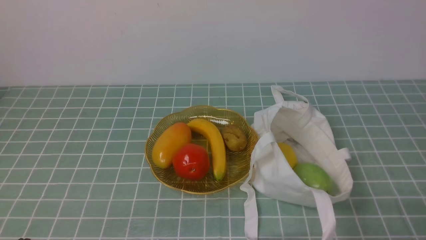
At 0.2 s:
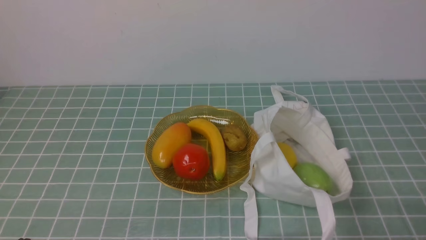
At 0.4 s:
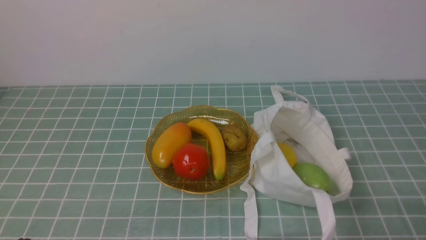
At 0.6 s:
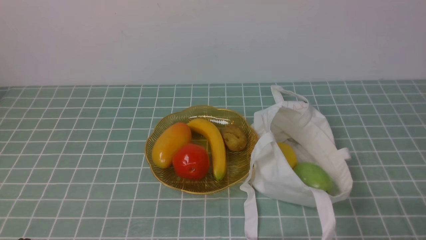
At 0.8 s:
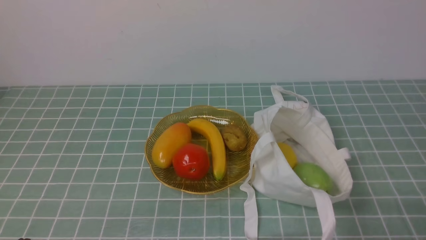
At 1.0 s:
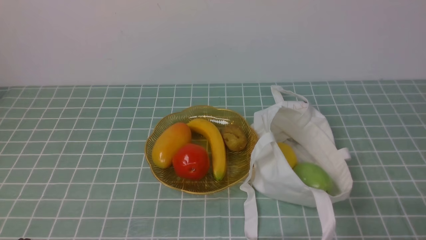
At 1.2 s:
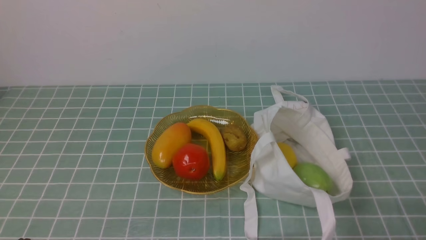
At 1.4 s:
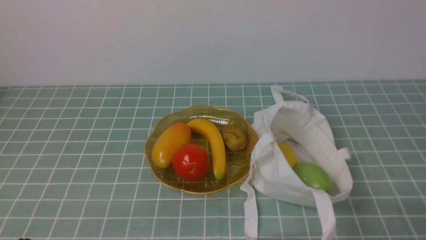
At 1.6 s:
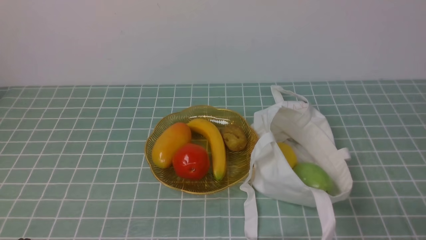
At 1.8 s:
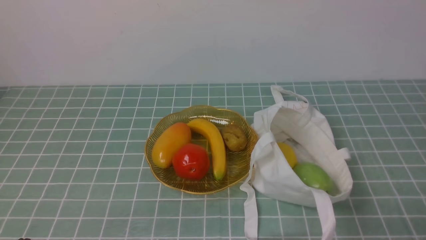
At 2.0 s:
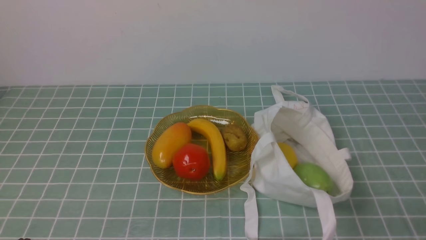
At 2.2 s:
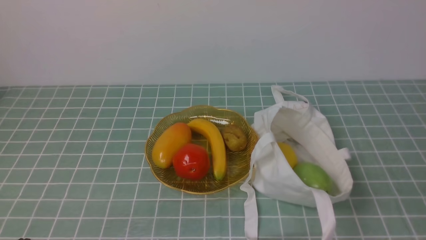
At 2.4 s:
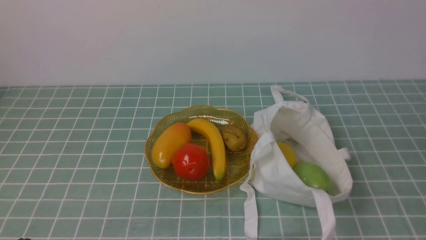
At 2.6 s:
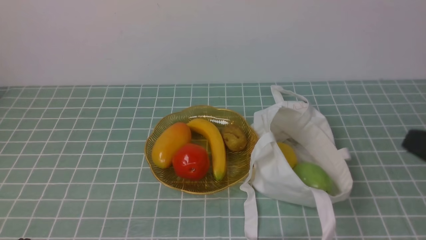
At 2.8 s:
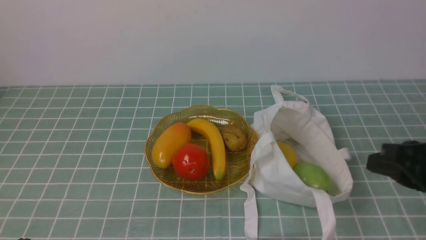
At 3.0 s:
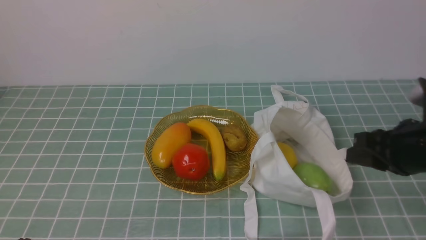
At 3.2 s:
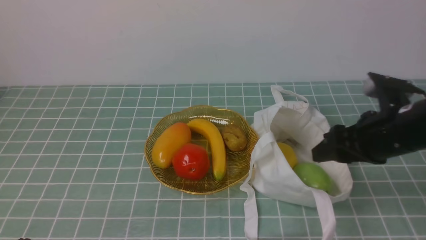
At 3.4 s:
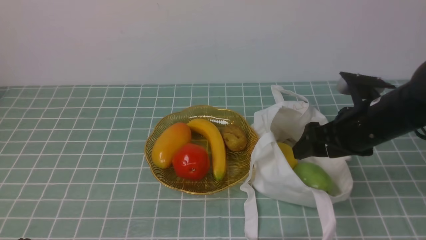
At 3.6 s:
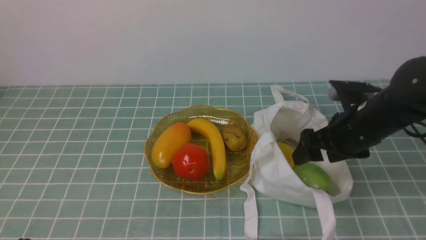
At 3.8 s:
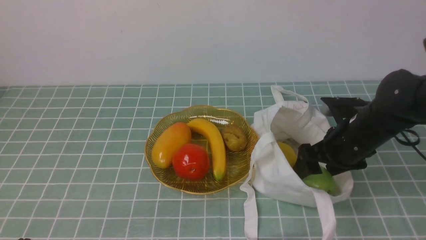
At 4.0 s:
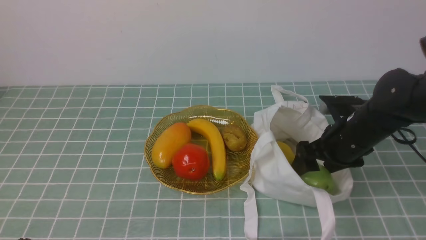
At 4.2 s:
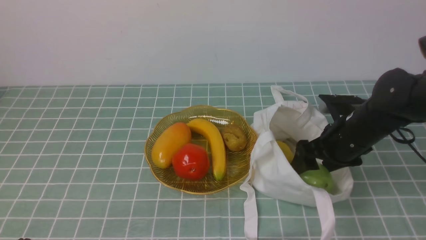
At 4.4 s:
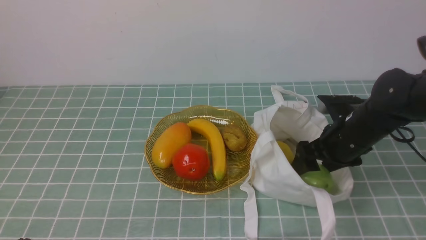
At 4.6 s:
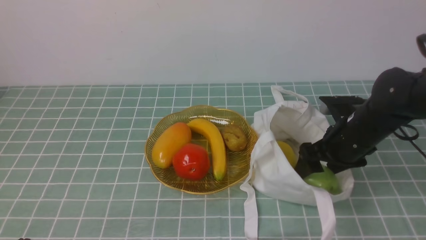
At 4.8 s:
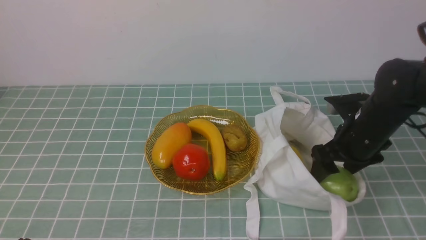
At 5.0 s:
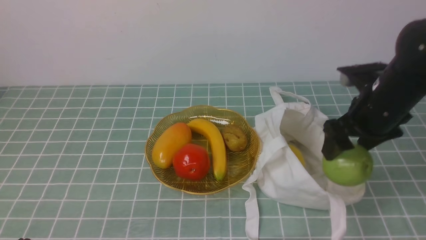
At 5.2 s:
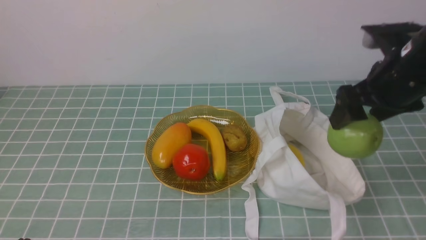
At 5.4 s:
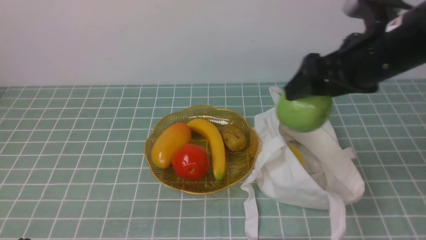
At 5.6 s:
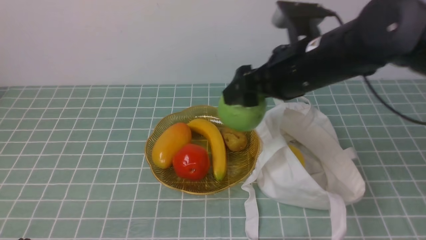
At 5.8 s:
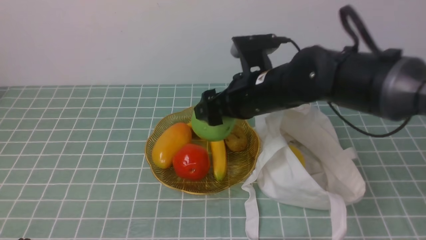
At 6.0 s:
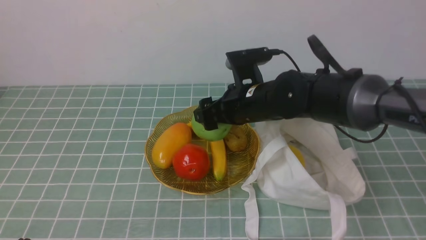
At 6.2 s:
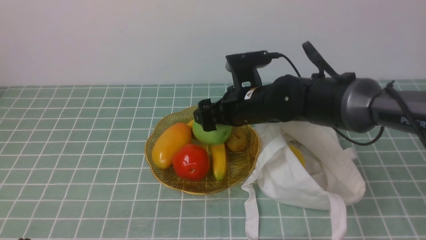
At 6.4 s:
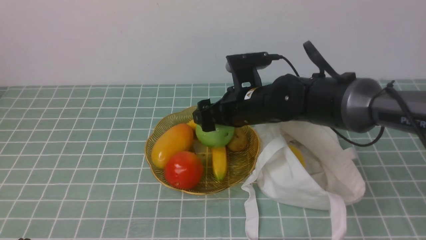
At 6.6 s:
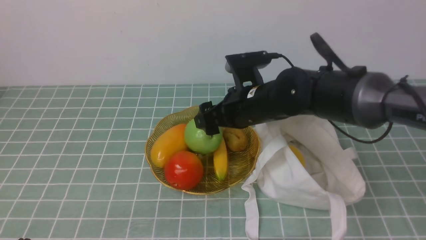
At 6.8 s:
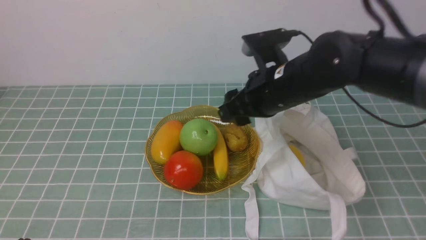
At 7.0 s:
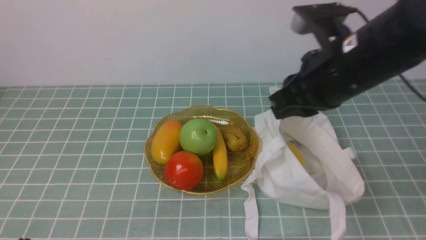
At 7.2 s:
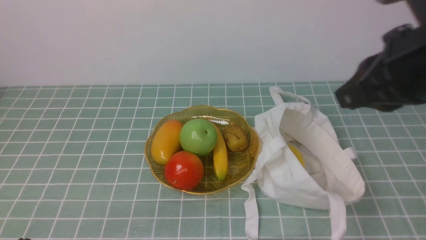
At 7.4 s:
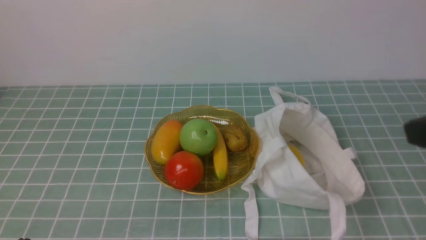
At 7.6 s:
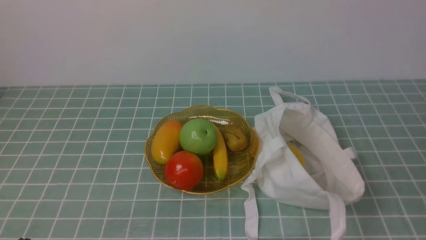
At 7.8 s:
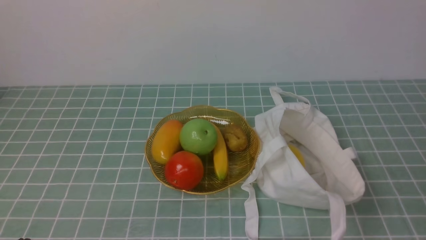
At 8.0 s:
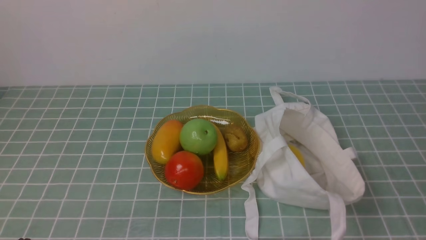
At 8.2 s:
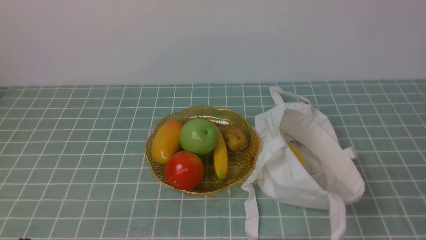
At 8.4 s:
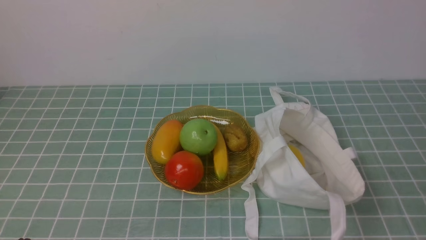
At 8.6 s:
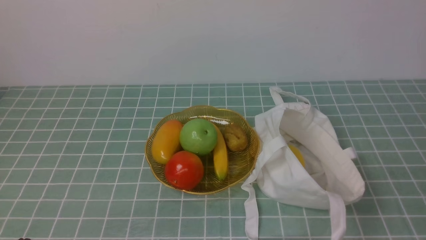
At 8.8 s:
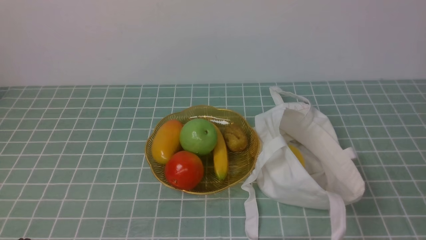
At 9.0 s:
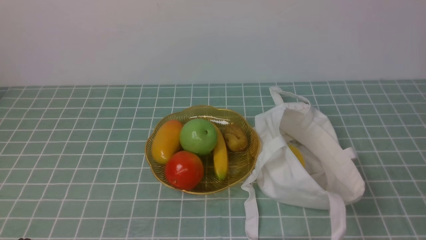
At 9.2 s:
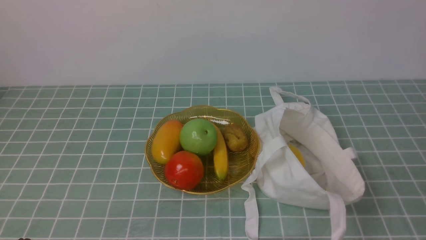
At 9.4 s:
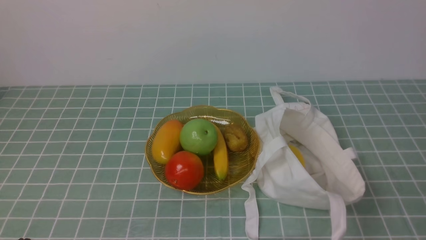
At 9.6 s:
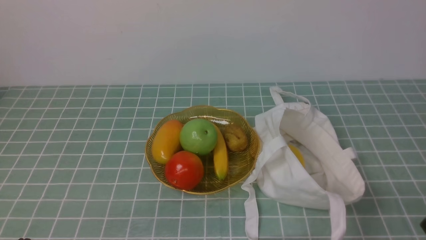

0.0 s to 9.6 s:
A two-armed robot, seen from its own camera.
Step, 0.0 to 5.0 s: use the right arm to grab an apple from the bag.
Step, 5.2 to 6.4 s: use the right arm to put the apple into the empty plate on the left.
1.6 to 3.2 s: The right gripper goes some 20 cm forward, and opens up.
3.2 to 4.8 s: The right gripper shifts approximately 5 cm forward.
4.8 to 6.4 s: The right gripper moves to the left, some 15 cm.
6.4 to 8.0 s: The right gripper moves backward and to the right, roughly 40 cm, and closes up.

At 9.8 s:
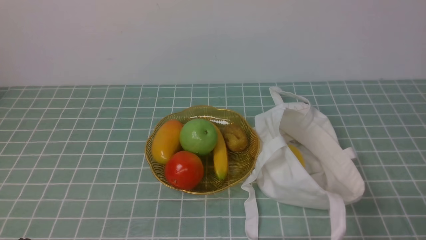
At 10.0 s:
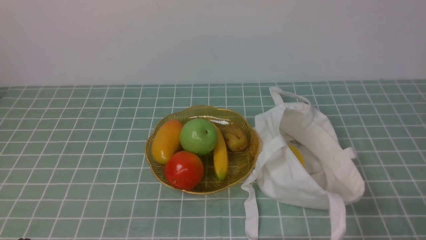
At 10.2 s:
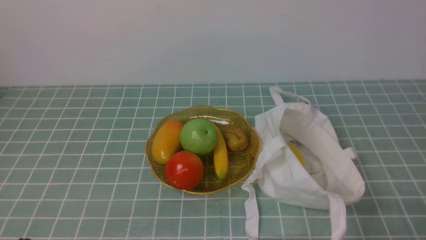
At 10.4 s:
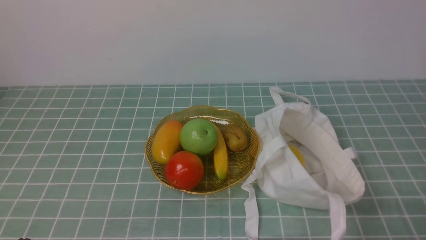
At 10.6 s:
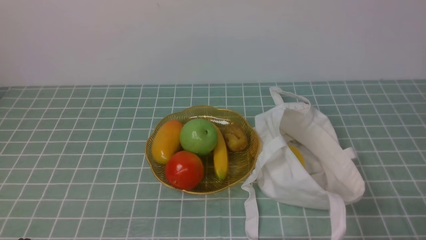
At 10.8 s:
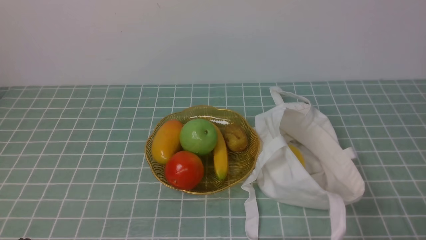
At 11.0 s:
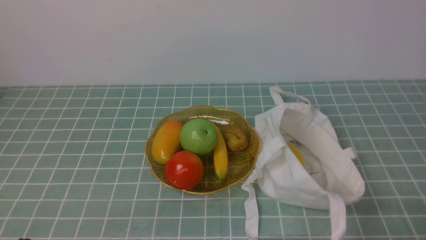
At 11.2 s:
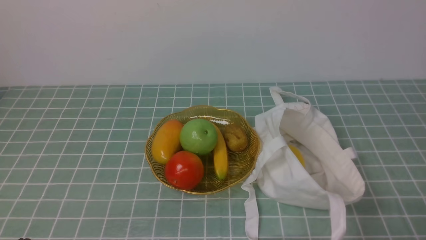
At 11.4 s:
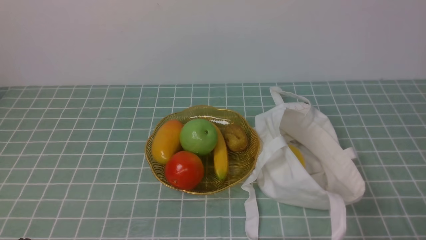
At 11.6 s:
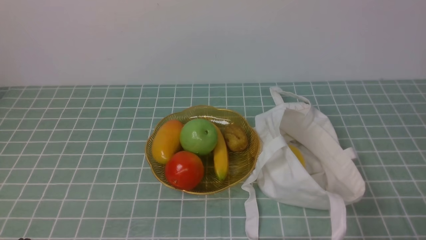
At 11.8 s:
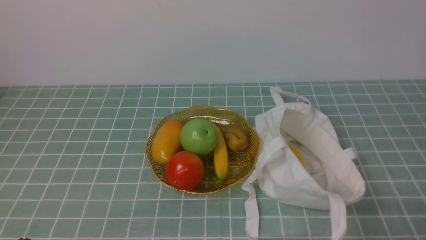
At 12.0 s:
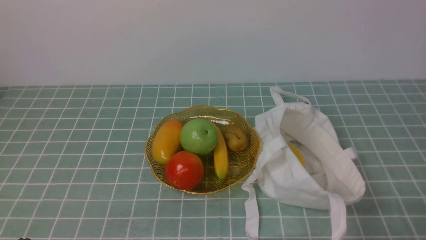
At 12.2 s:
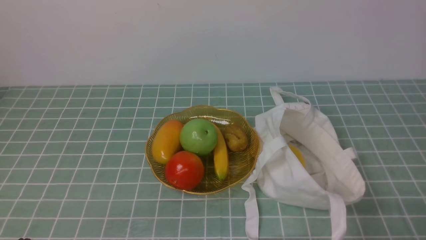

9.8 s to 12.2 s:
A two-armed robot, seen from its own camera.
11.0 to 12.2 s: Both grippers stay about where they are.
